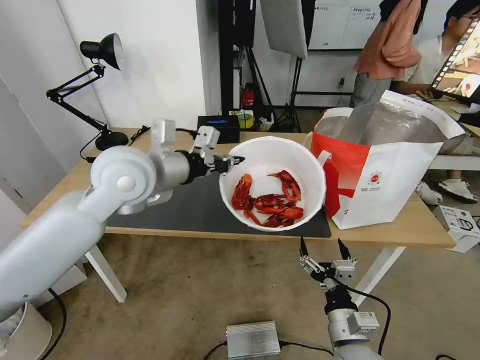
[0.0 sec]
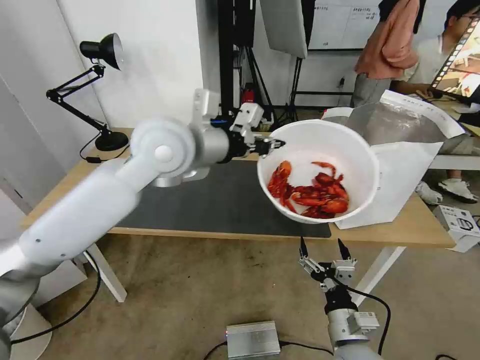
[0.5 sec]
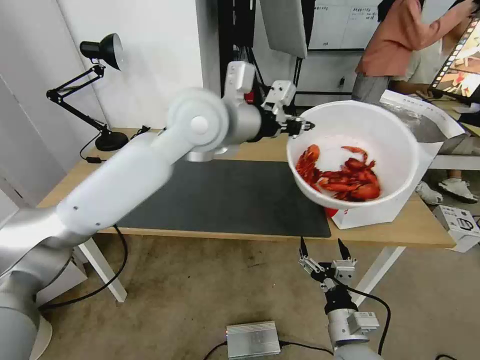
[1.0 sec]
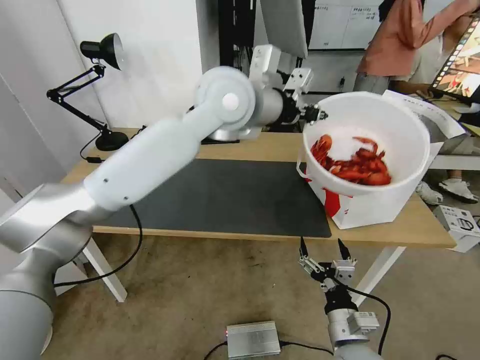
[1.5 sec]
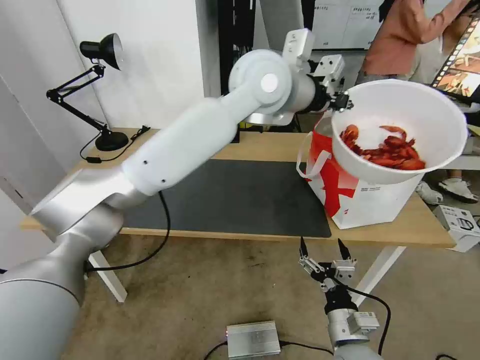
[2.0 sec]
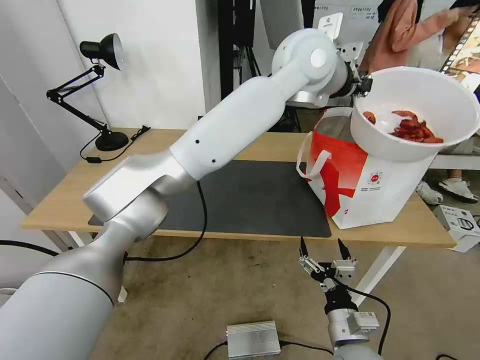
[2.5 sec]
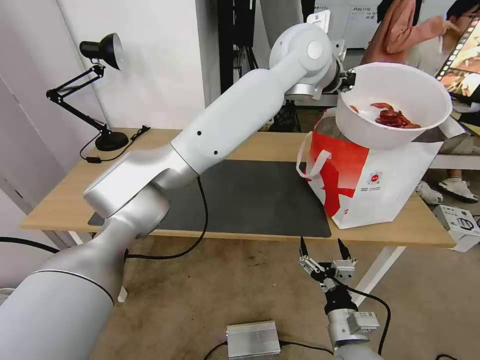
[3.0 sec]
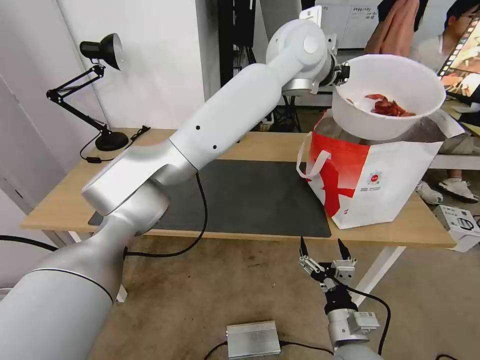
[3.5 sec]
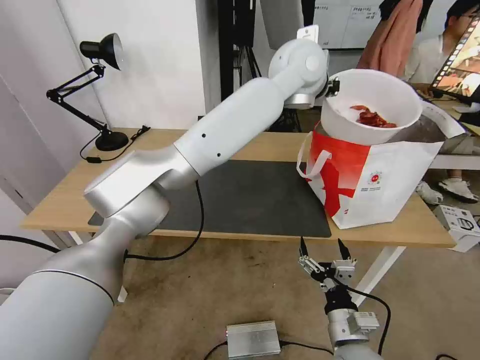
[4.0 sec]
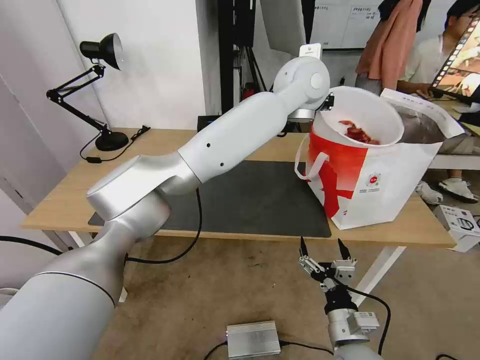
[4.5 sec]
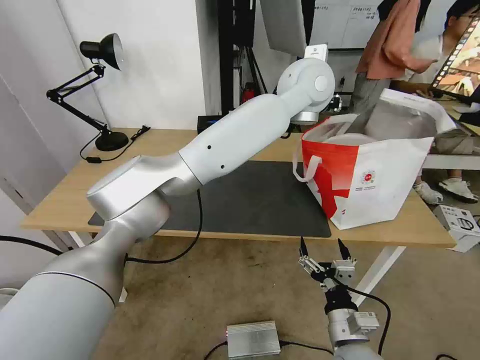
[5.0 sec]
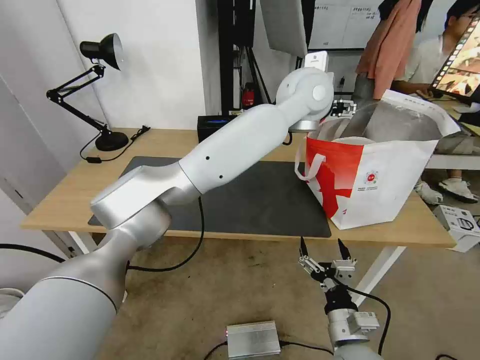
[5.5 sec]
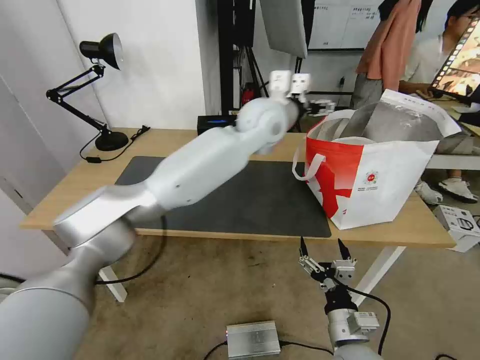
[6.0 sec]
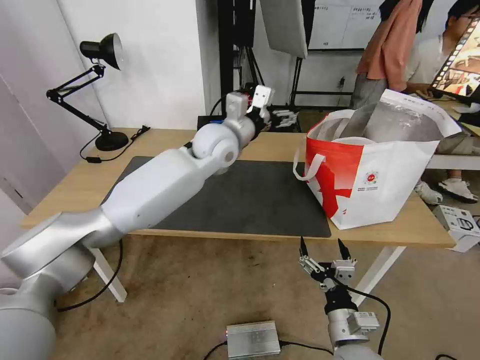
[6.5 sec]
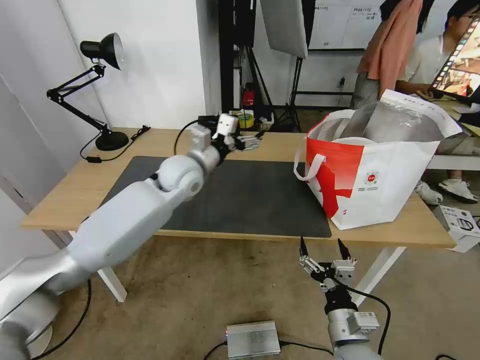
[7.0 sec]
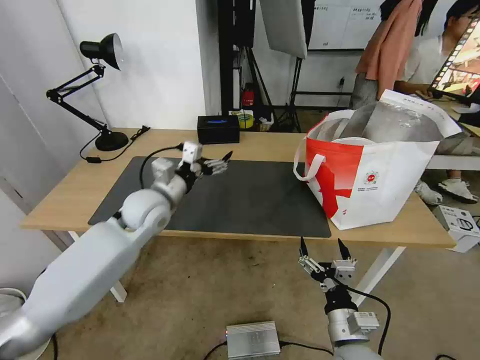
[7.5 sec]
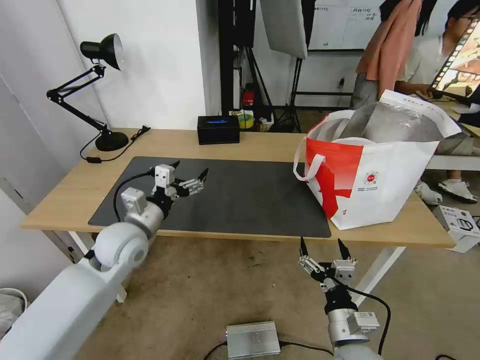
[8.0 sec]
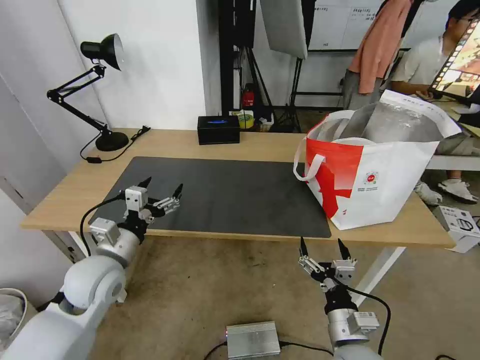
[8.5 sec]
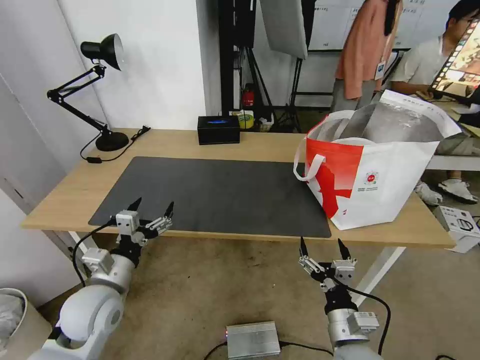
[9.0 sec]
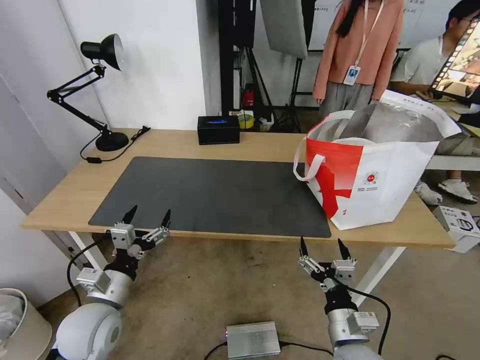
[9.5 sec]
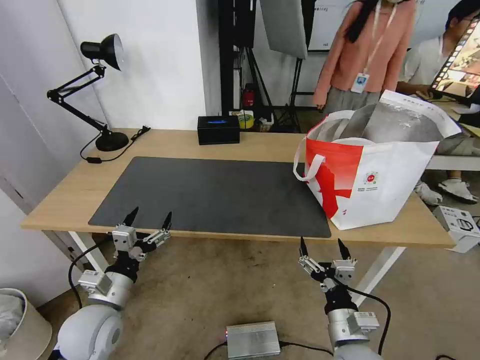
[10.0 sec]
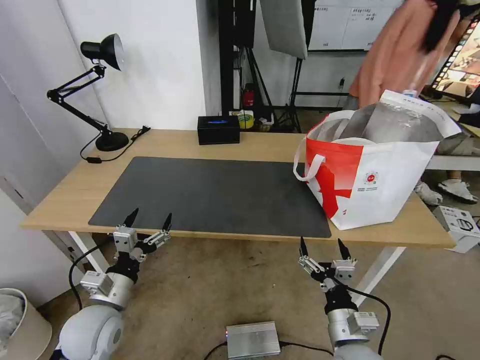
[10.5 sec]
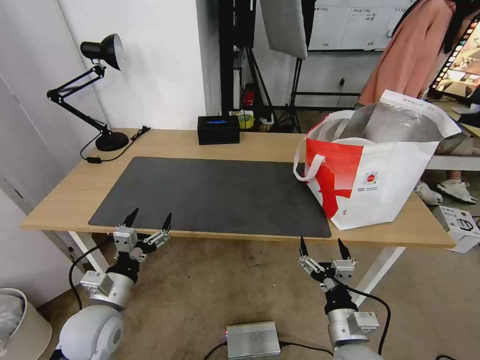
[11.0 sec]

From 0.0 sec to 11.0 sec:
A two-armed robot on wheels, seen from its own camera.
Task of the whole recording: Pick up the trash from the table and place it into the takeout bag.
From 0.0 sec to 2.0 sec: The left gripper heads to the right, upward and forward, covering approximately 25 cm.
From 2.0 sec to 3.5 sec: The left gripper travels to the right and forward by roughly 10 cm.
From 3.5 sec to 5.5 sec: The left gripper heads downward, covering some 5 cm, and opens its fingers.
From 5.5 sec to 7.5 sec: The left gripper travels to the left and downward by about 40 cm.
From 7.5 sec to 9.0 sec: The left gripper goes roughly 20 cm backward and downward.
From 9.0 sec to 11.0 sec: The grippers stay close to where they were, moving slightly.

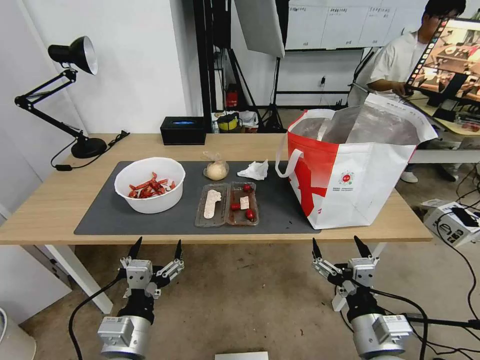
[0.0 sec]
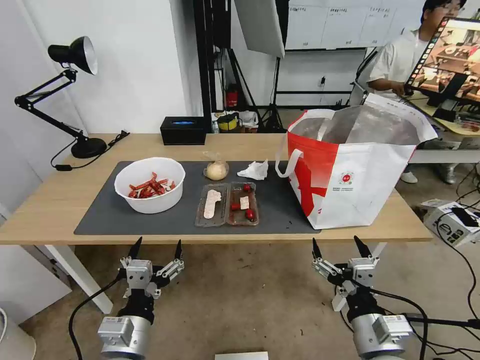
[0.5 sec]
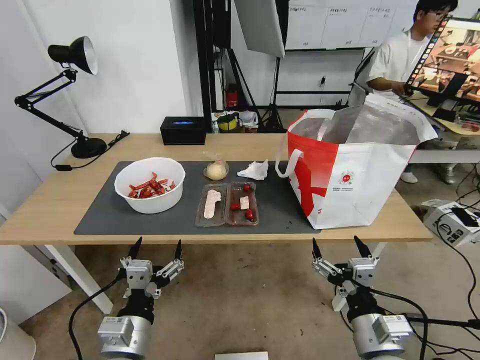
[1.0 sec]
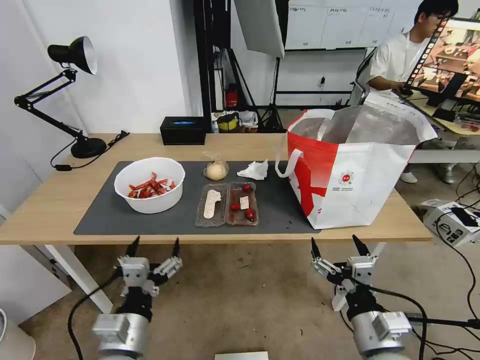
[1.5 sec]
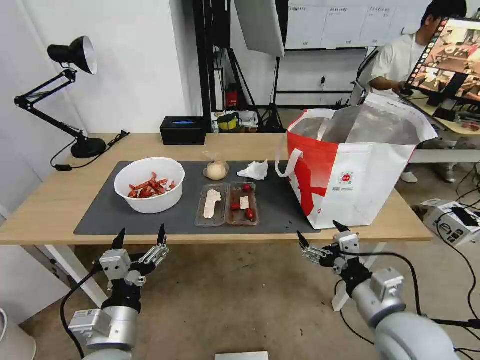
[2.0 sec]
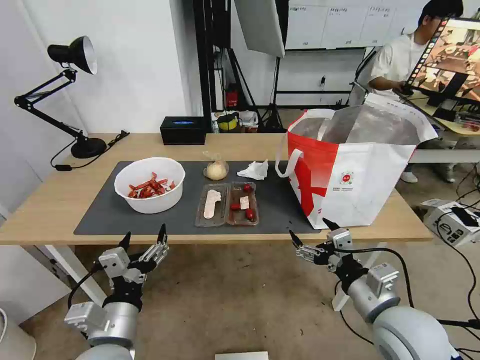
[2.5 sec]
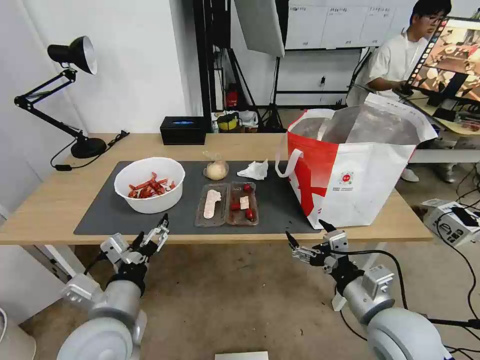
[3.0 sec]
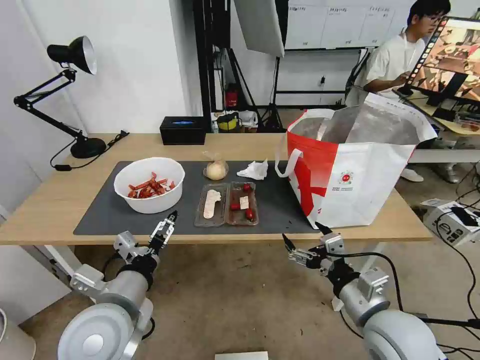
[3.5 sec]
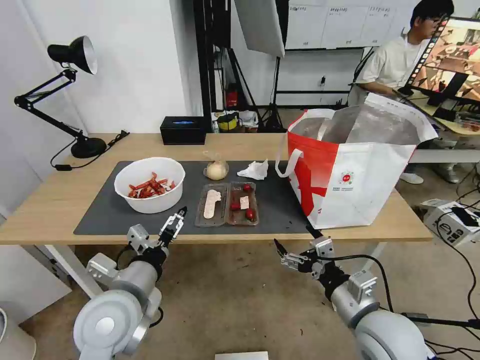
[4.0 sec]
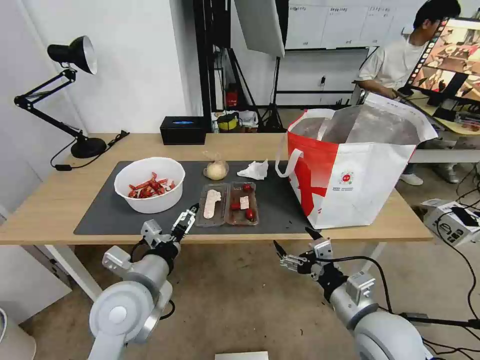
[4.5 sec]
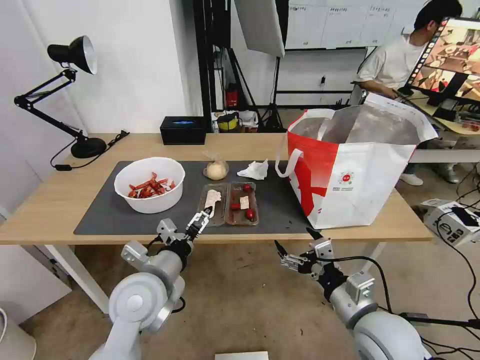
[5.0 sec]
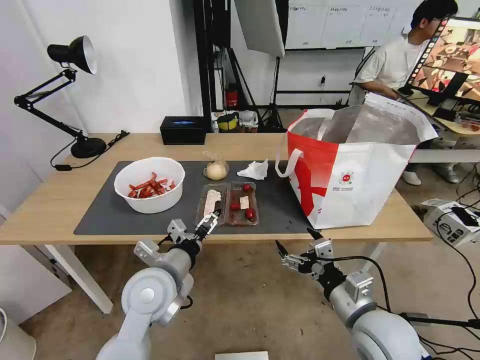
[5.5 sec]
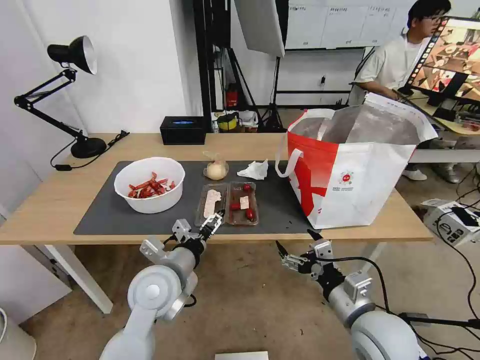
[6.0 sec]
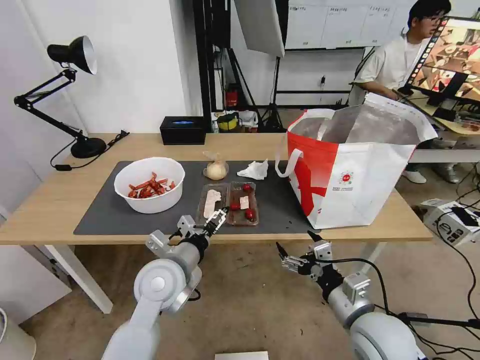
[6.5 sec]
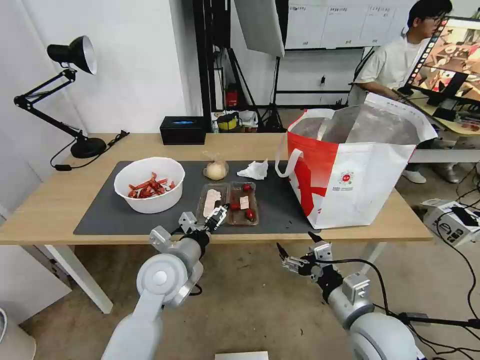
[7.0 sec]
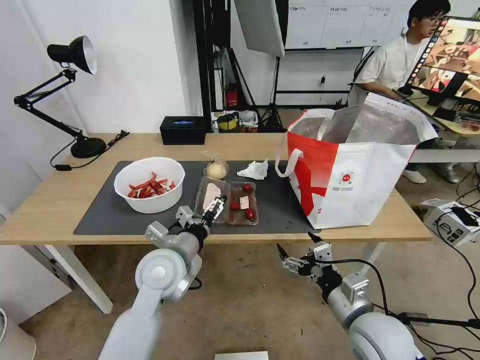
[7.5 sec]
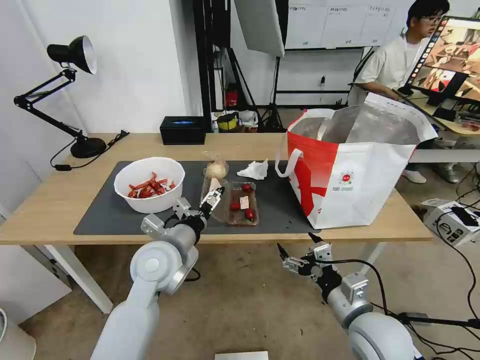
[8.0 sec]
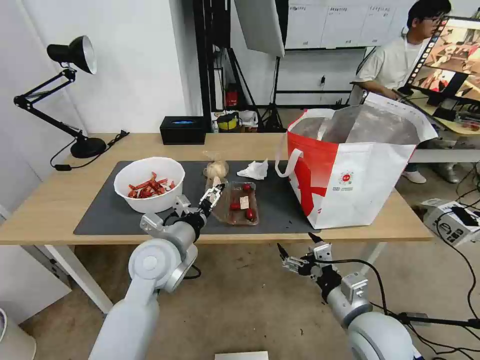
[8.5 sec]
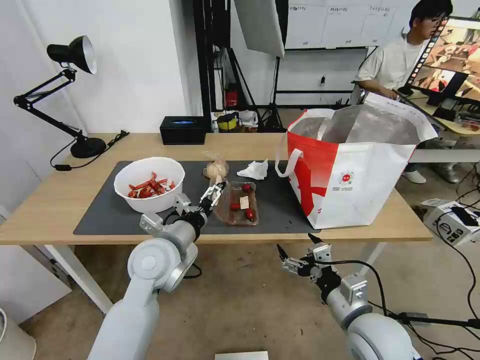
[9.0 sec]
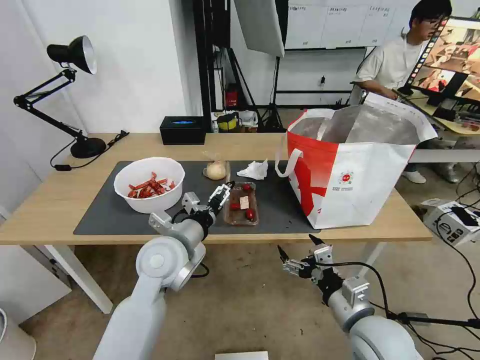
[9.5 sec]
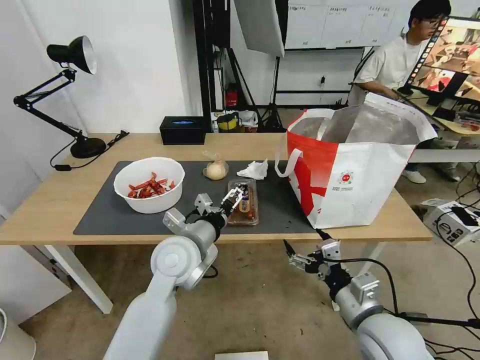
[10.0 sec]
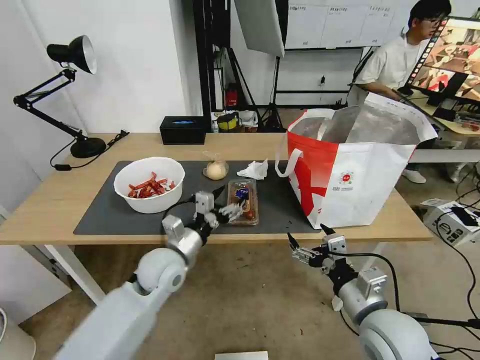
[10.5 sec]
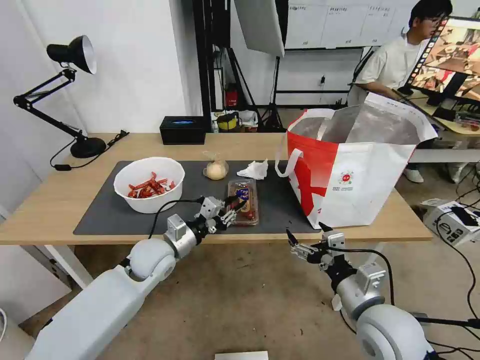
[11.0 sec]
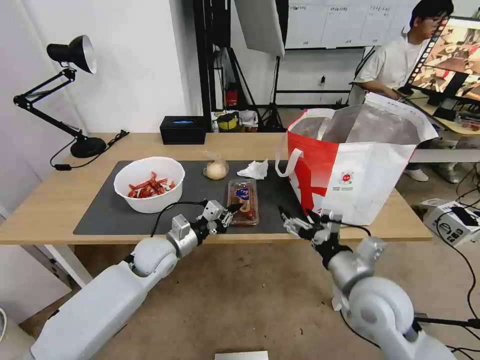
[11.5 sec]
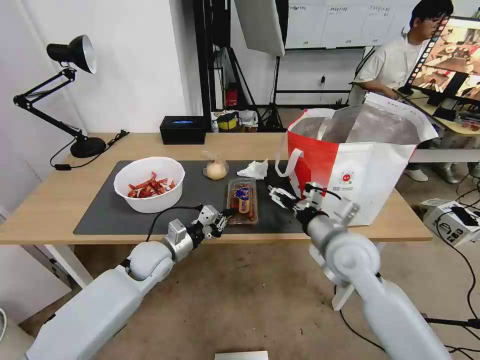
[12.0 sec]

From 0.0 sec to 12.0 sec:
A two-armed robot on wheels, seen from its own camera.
Task of the whole recording: Pick up the trash from the table and place it into the takeout bag.
From 2.0 sec to 4.0 sec: The left gripper goes roughly 10 cm forward and upward.
From 4.0 sec to 6.0 sec: The left gripper moves forward and to the right, some 10 cm.
From 6.0 sec to 8.0 sec: The grippers make only small movements.
From 8.0 sec to 10.0 sec: The grippers make only small movements.
From 10.0 sec to 12.0 sec: The left gripper is displaced downward, to the left and forward by roughly 15 cm, and closes; the right gripper is displaced forward by some 15 cm.

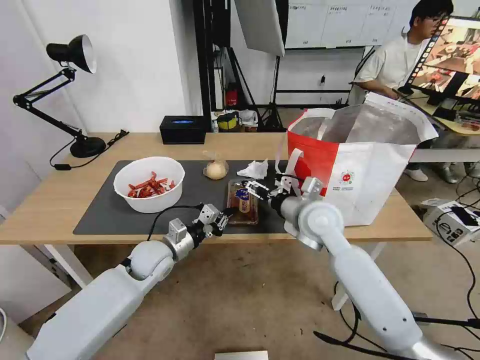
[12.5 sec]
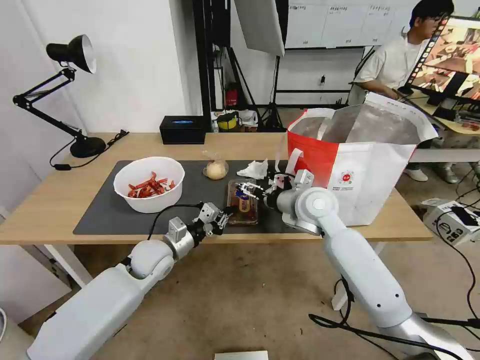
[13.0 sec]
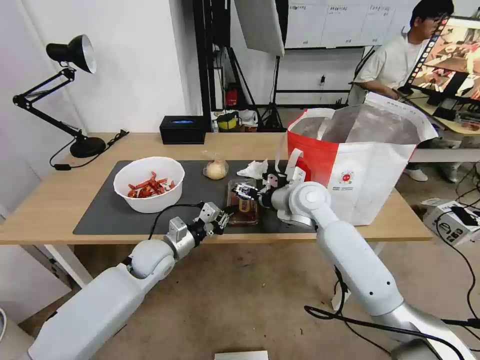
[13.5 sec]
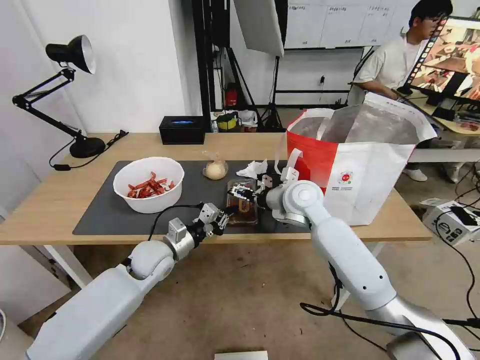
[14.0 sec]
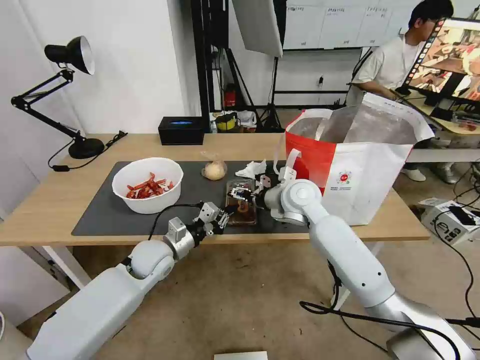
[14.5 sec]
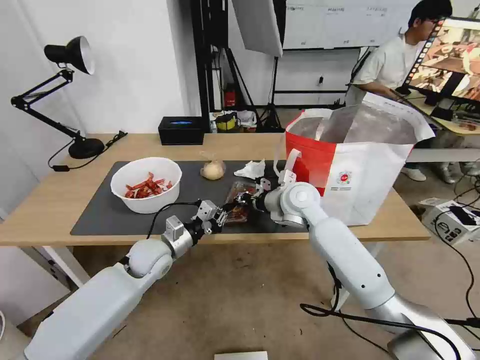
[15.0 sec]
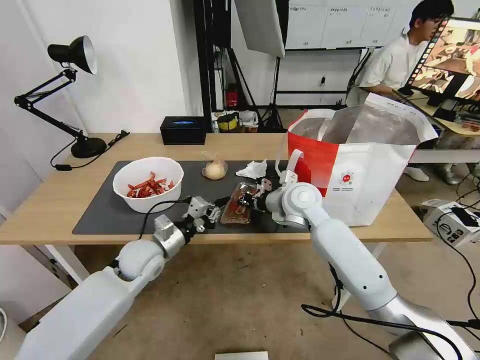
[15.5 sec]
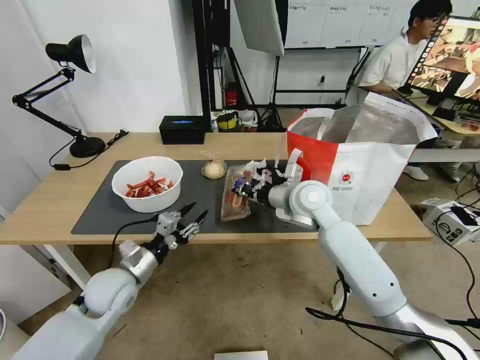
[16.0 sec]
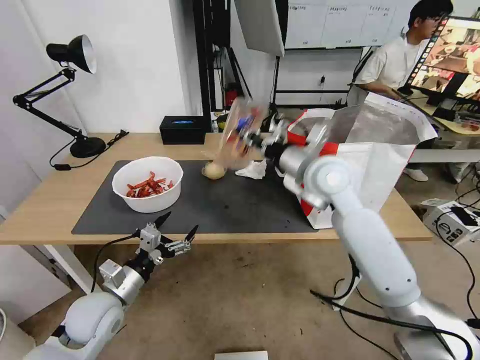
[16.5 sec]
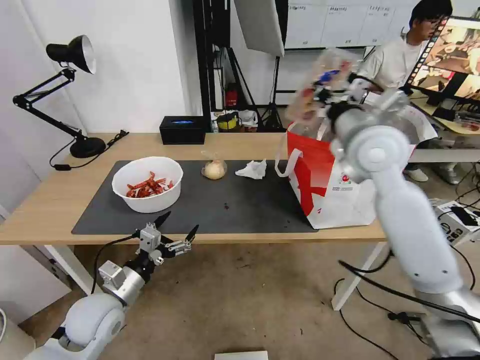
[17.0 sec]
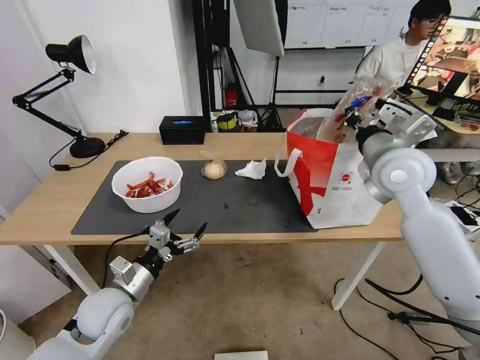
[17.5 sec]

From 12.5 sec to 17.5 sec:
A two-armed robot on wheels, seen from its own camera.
Task of the whole recording: Pick up the trash from the table and place it into the takeout bag.
From 12.5 sec to 15.0 sec: The right gripper moves forward, some 5 cm, and closes.
From 15.0 sec to 17.5 sec: The right gripper heads to the right and upward, covering some 20 cm; the left gripper travels backward and to the left by roughly 15 cm, and opens up.
